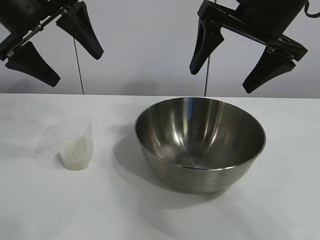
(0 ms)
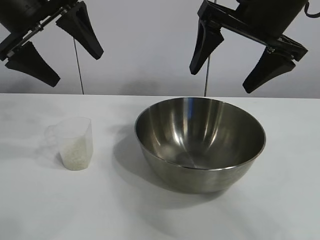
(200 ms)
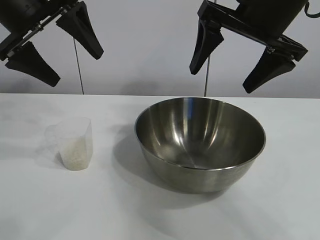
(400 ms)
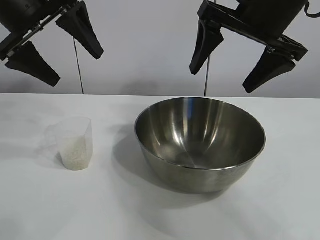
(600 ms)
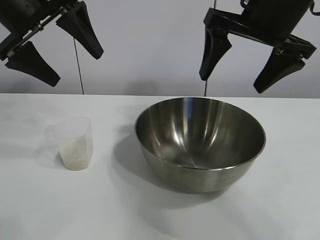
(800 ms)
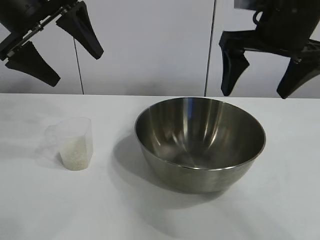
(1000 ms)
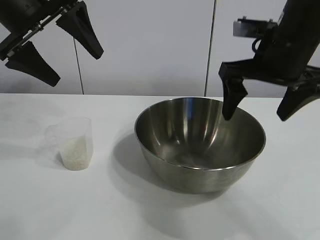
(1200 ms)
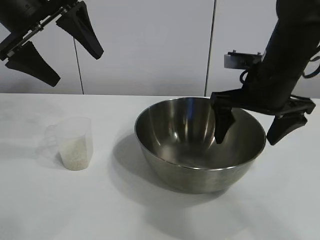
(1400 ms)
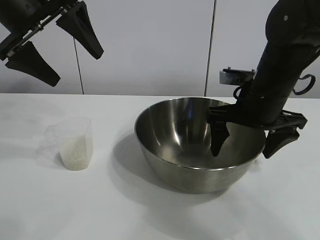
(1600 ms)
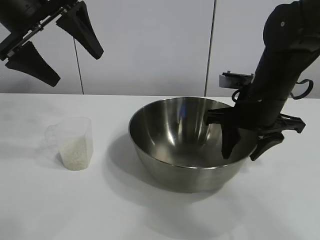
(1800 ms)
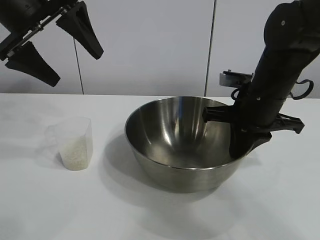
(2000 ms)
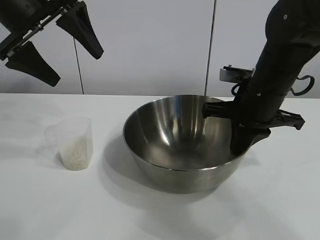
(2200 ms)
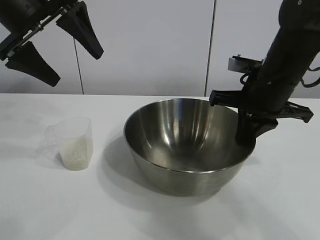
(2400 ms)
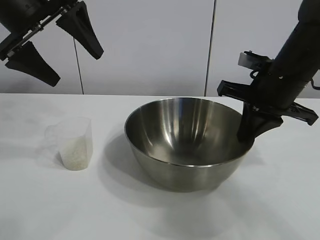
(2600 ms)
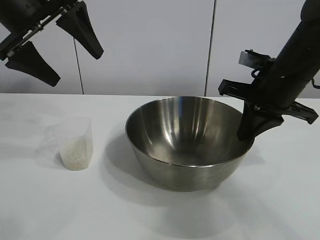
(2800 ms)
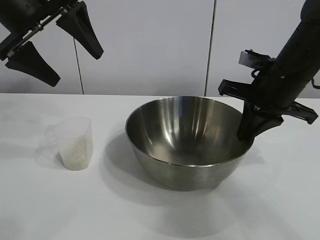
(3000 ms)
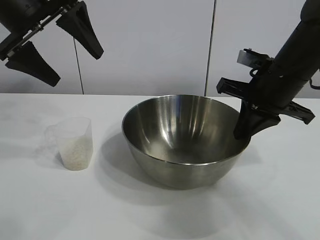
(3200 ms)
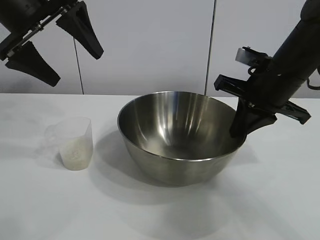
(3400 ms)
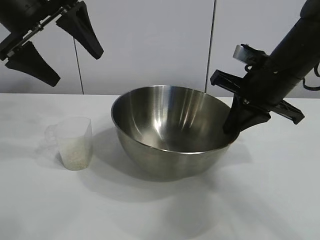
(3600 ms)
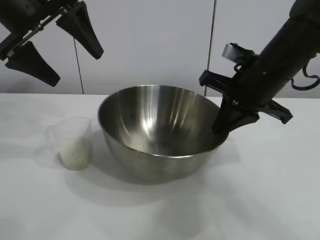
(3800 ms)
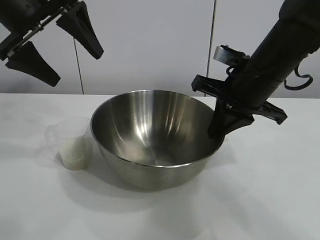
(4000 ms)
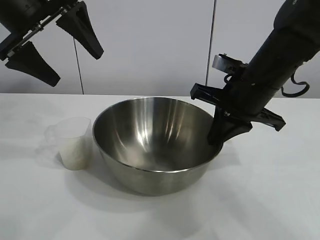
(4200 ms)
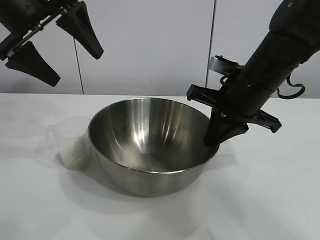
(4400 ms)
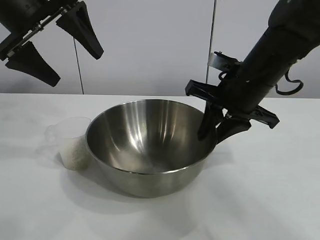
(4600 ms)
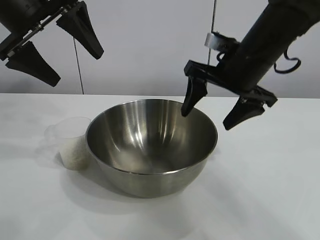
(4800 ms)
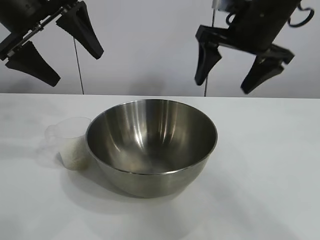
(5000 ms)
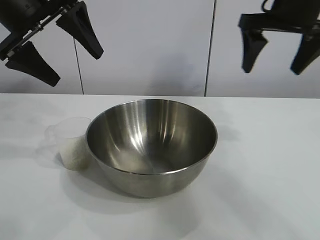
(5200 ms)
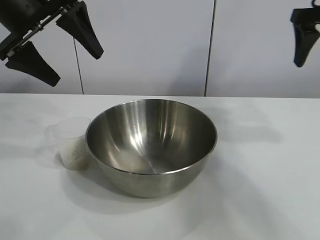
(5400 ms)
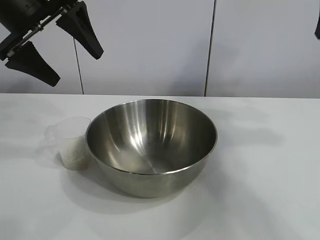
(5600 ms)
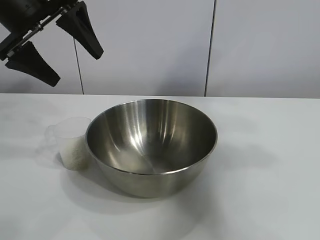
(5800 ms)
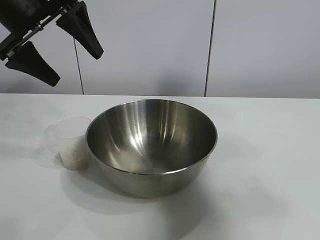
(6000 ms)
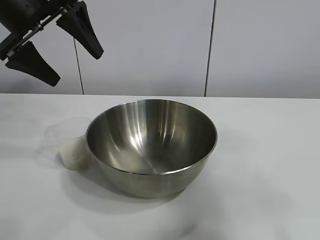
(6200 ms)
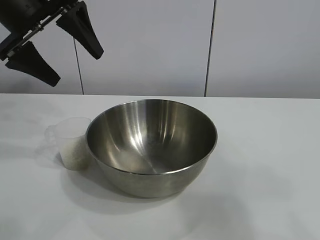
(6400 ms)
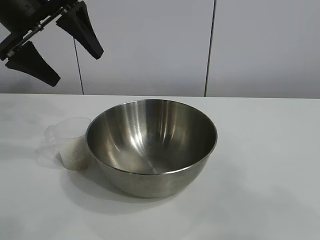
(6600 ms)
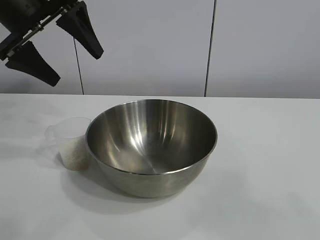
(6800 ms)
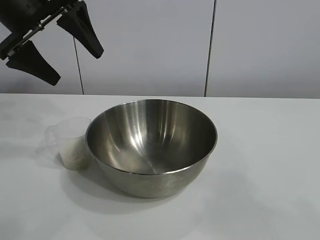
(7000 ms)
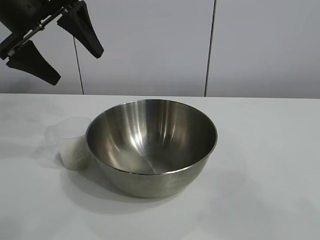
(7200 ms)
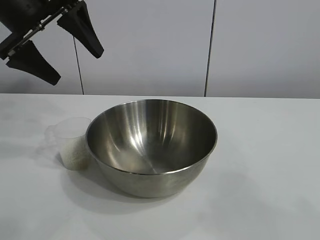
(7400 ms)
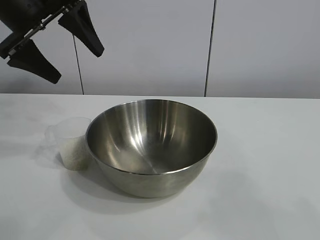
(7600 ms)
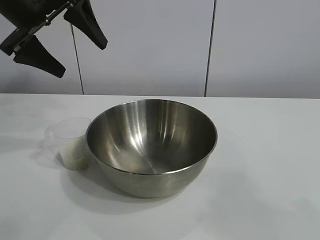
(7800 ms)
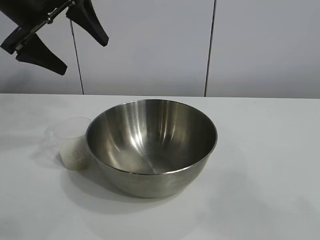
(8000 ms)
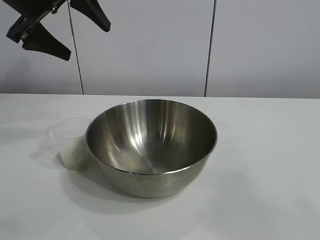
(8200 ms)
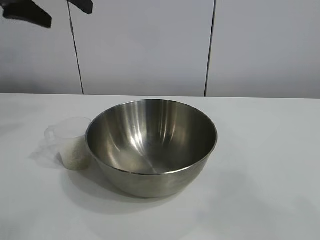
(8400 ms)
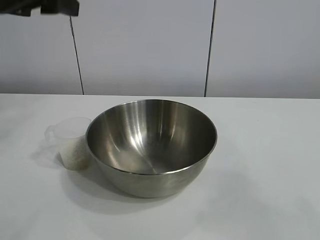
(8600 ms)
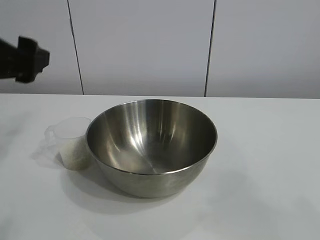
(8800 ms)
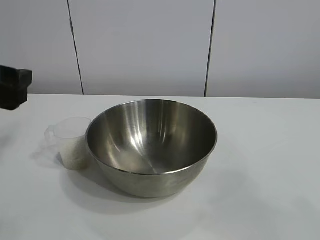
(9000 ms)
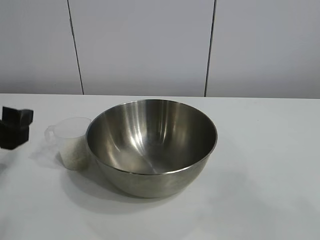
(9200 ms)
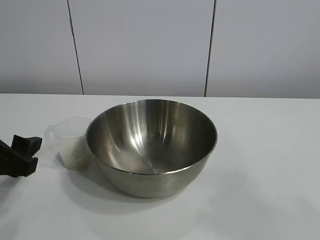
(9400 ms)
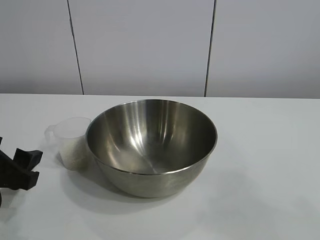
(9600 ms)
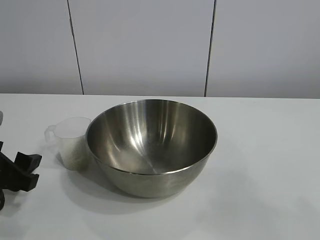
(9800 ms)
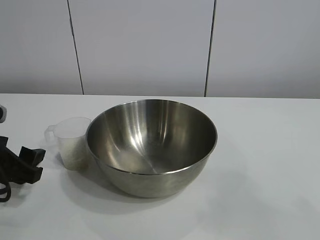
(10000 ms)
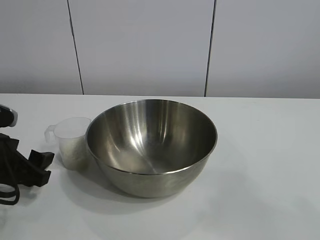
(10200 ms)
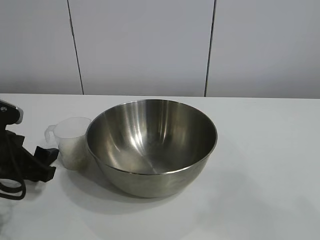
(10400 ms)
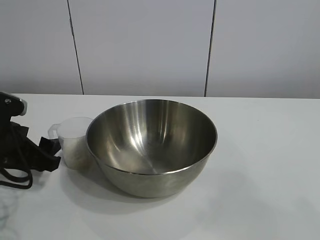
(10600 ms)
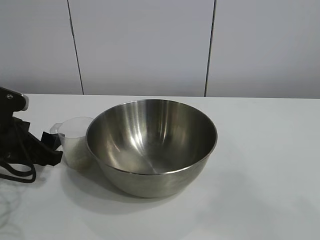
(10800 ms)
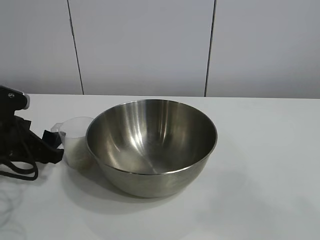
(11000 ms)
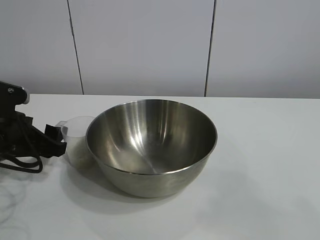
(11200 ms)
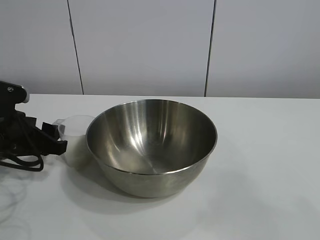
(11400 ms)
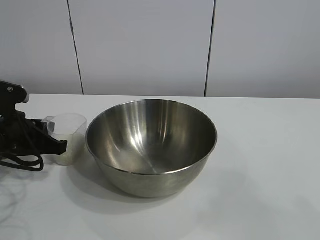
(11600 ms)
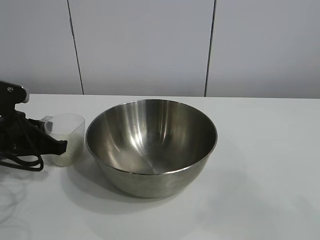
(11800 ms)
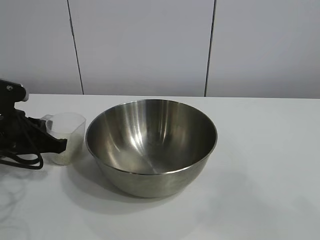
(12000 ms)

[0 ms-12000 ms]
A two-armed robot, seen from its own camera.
Task of the whole recording: the right gripper grasp the rice container and place it in the center of the table, the left gripper grasp the rice scoop and pour the rice into the rice container.
Step, 600 ms to 4400 ms: Move the bowl in the center of view with right gripper.
Step, 4800 ms to 12000 ms: Grasp the cup with rice in it with left gripper.

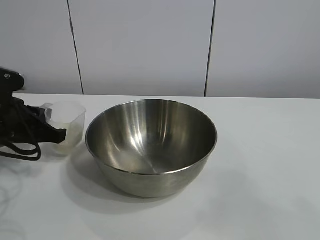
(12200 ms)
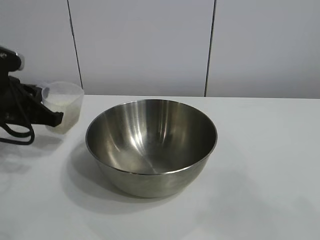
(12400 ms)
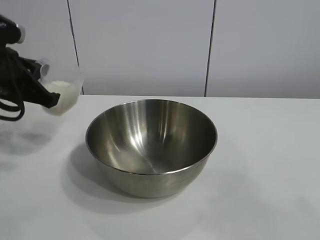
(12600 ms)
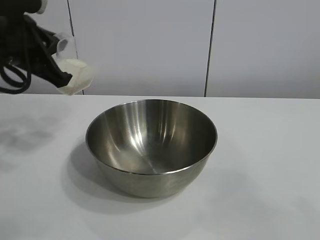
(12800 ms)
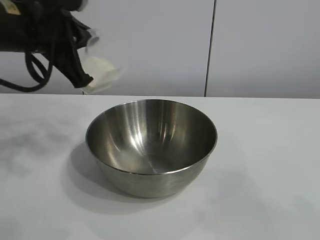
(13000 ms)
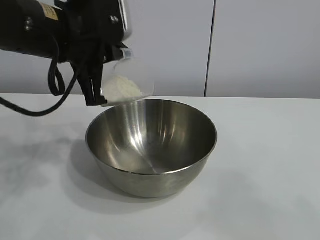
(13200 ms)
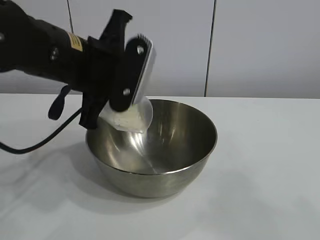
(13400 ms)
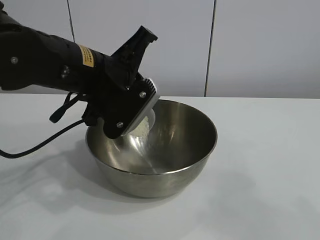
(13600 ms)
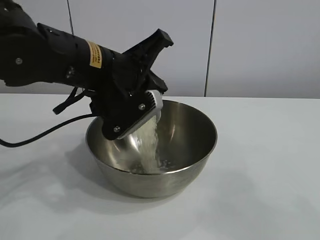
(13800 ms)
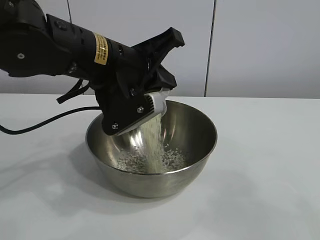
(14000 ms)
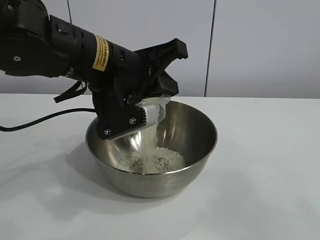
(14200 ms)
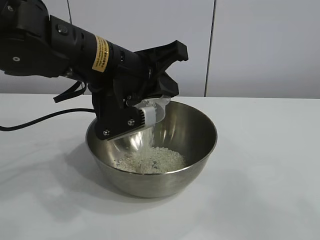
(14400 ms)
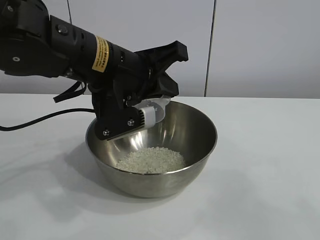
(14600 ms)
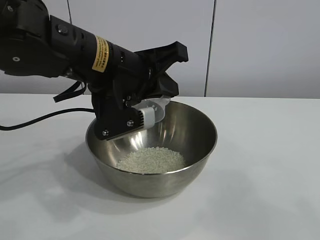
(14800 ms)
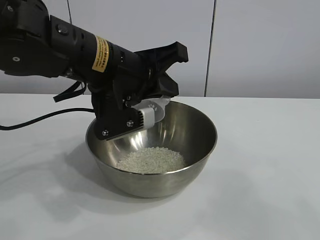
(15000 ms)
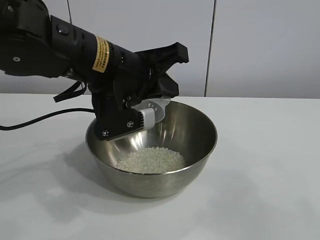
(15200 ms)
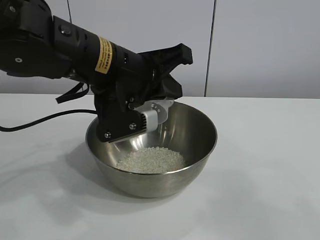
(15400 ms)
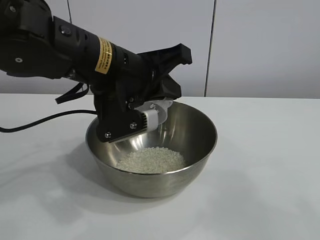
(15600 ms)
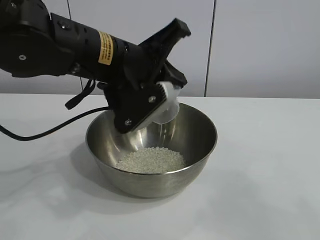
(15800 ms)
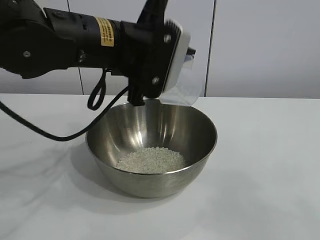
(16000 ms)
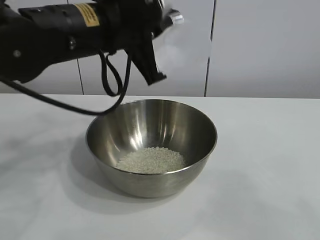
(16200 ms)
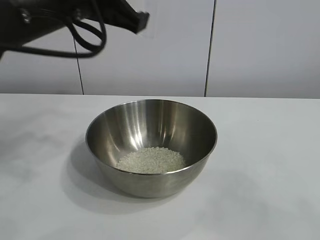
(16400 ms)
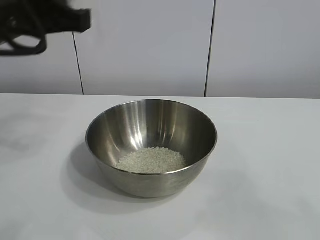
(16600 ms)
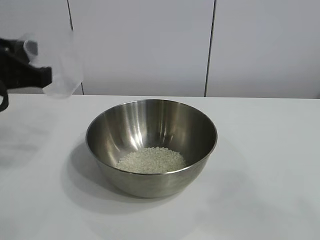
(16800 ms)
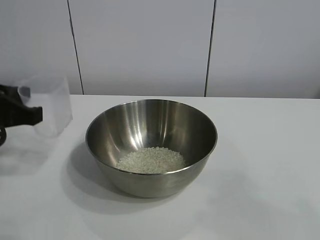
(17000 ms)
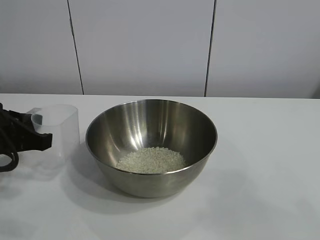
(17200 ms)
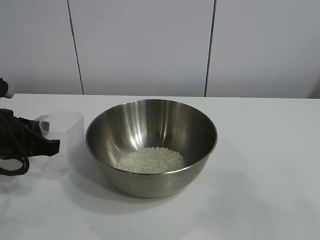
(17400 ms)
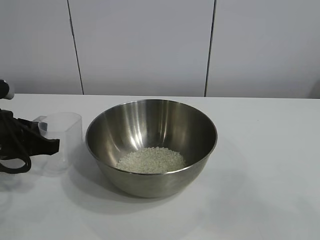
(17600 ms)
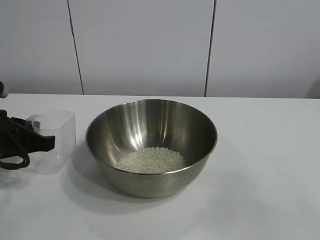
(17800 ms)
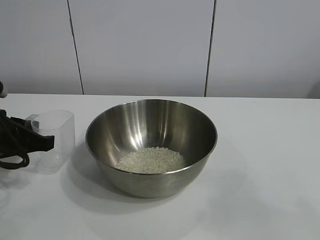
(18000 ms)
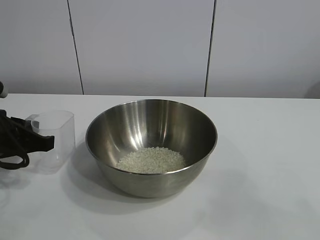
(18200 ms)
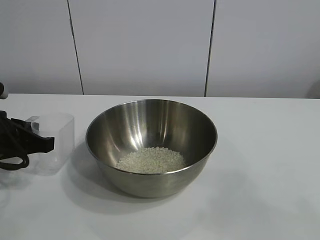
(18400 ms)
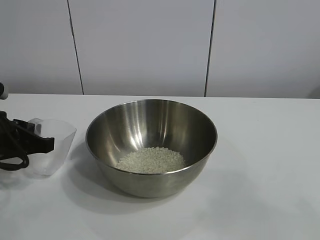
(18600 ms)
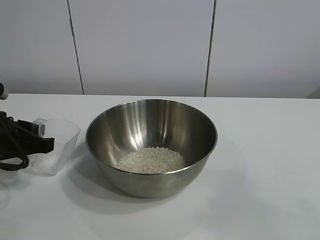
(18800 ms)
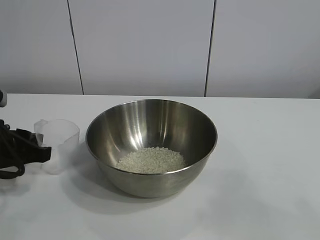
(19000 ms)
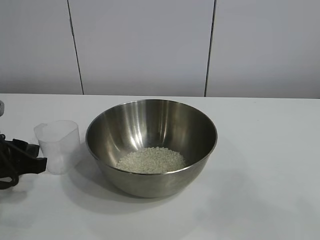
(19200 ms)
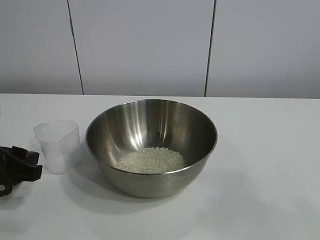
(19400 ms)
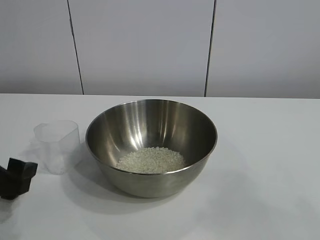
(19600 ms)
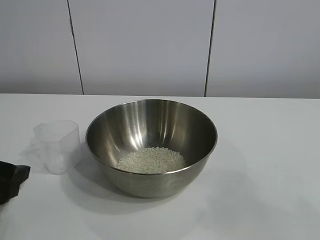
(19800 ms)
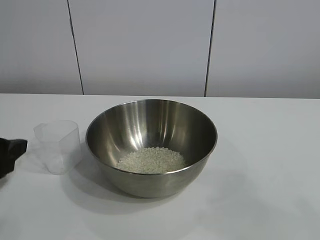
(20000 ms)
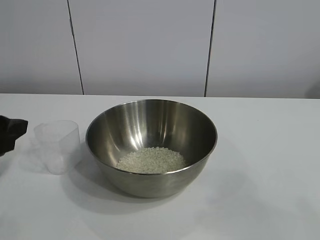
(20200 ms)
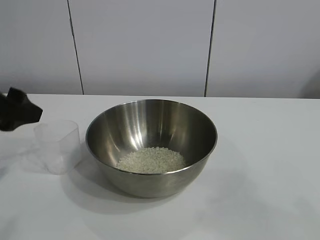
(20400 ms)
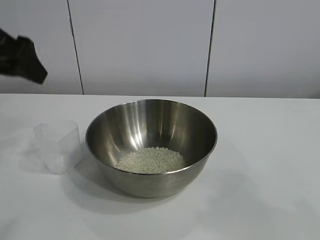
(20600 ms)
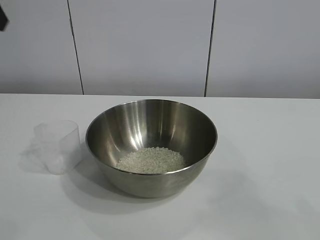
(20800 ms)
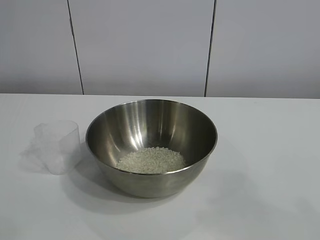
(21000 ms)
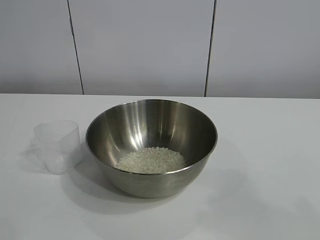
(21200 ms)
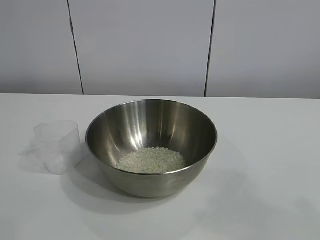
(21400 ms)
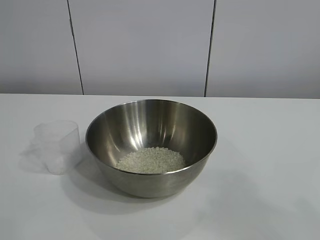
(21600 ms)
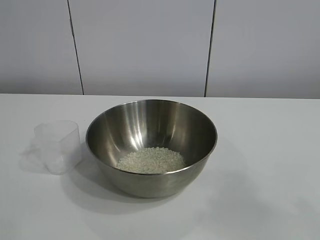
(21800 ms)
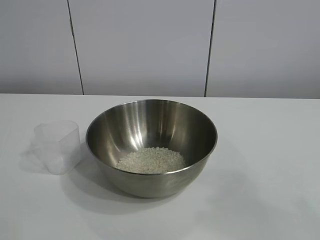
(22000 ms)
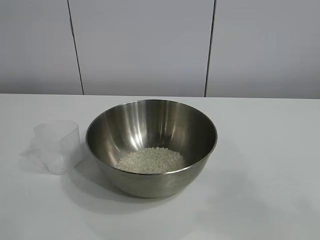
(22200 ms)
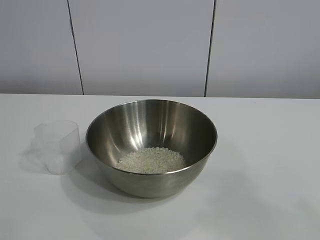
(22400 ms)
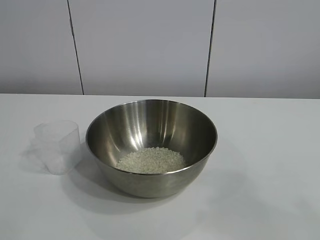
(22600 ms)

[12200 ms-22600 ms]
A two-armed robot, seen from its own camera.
Task of the whole recording: the right gripper grasp the rice container and place it in the center of the table, the left gripper grasp the rice scoop and pour the rice into the rice container.
Step, 12200 ms to 15200 ms: Pour the rice from the cup into the bowl with the left gripper.
Step, 15400 ms to 19000 ms: Place the cup on the table with the left gripper.
